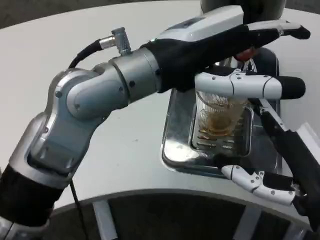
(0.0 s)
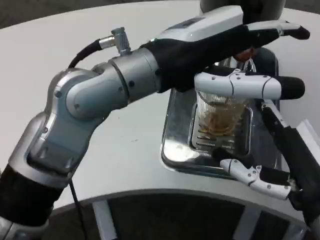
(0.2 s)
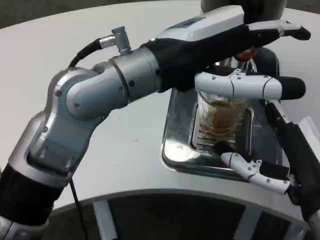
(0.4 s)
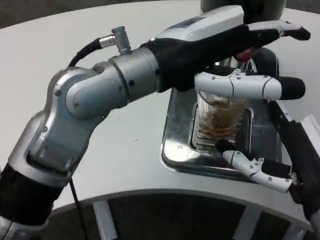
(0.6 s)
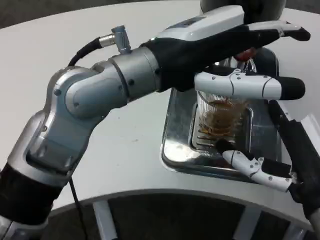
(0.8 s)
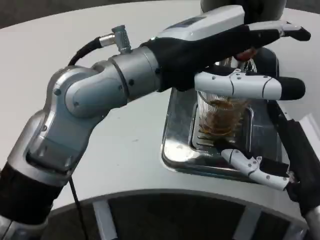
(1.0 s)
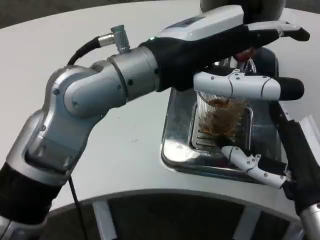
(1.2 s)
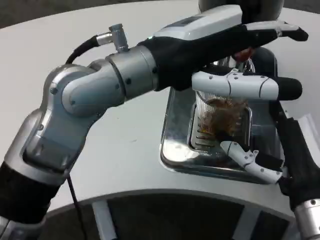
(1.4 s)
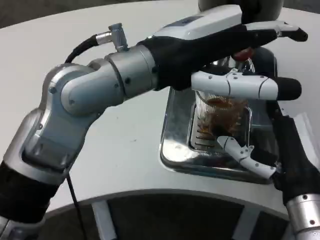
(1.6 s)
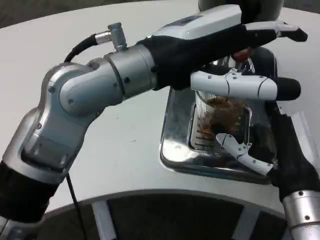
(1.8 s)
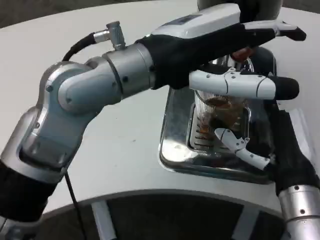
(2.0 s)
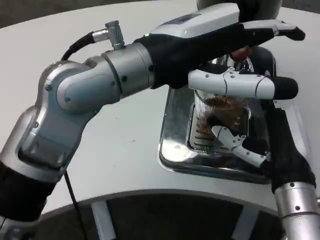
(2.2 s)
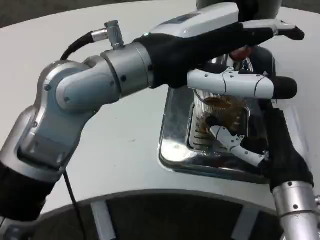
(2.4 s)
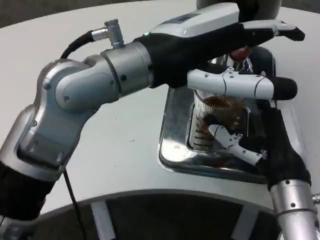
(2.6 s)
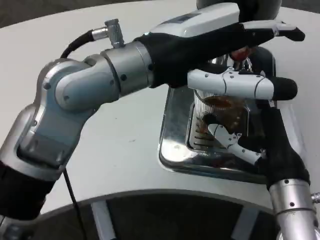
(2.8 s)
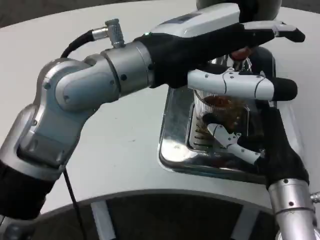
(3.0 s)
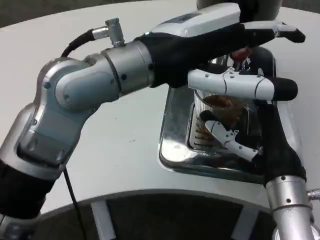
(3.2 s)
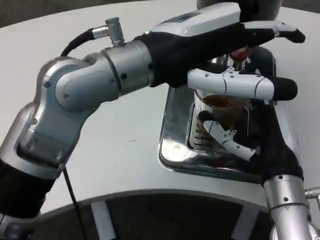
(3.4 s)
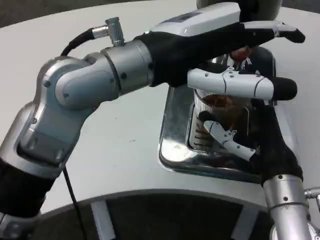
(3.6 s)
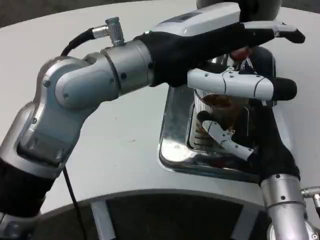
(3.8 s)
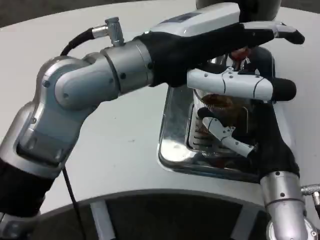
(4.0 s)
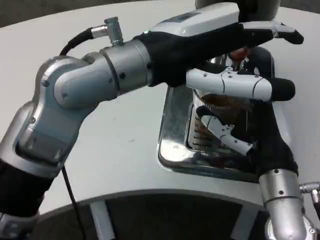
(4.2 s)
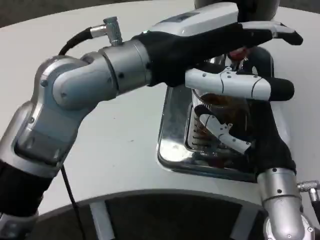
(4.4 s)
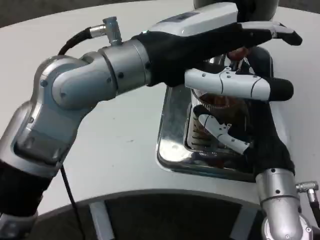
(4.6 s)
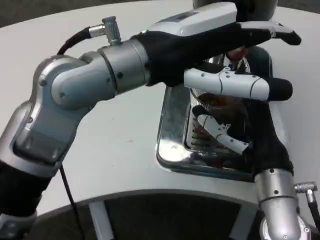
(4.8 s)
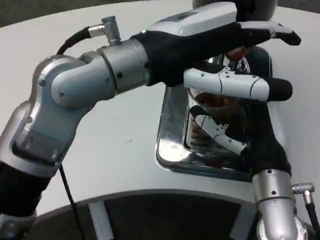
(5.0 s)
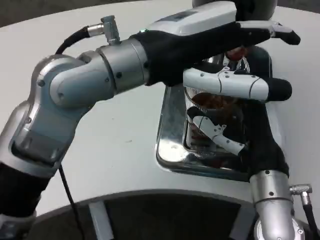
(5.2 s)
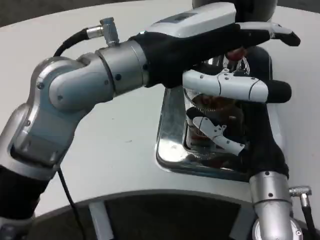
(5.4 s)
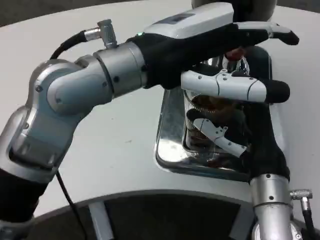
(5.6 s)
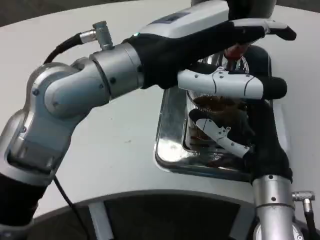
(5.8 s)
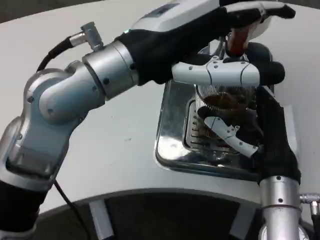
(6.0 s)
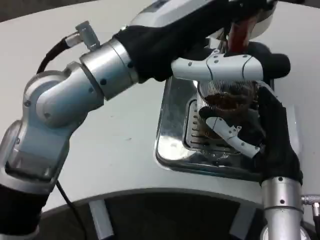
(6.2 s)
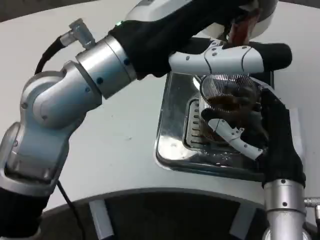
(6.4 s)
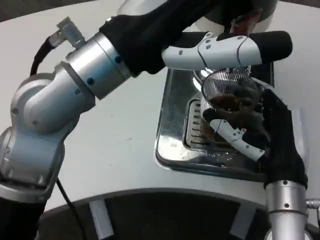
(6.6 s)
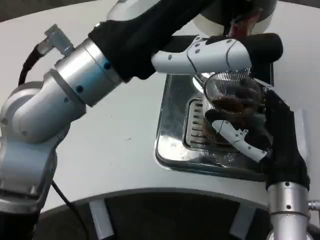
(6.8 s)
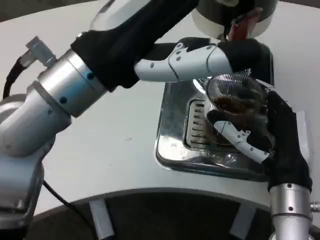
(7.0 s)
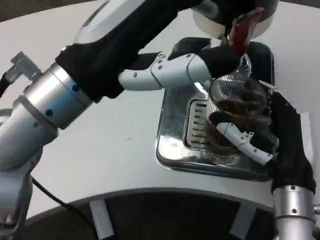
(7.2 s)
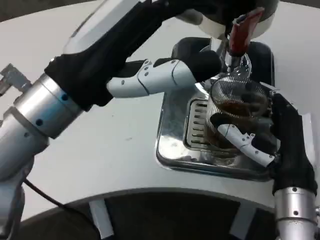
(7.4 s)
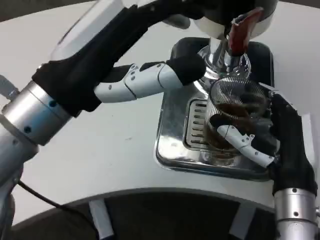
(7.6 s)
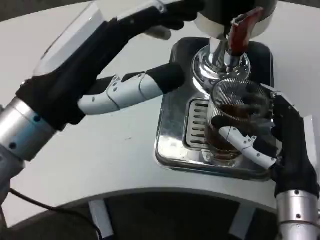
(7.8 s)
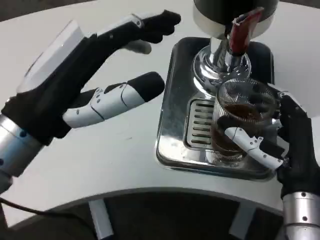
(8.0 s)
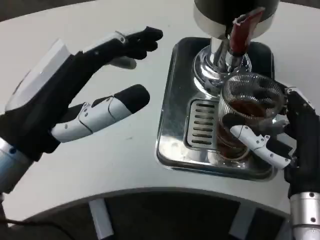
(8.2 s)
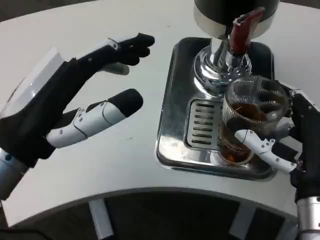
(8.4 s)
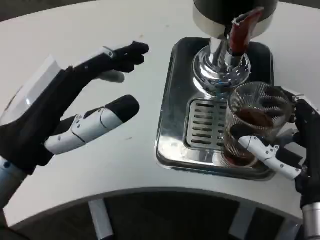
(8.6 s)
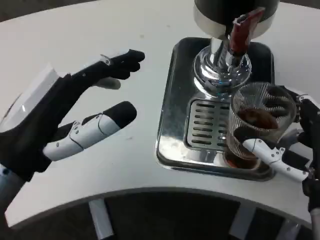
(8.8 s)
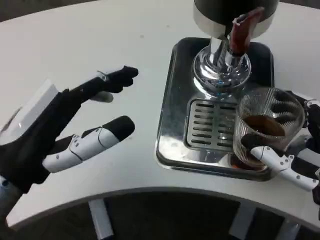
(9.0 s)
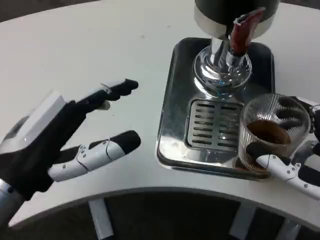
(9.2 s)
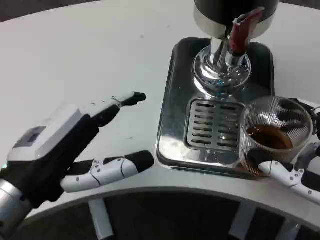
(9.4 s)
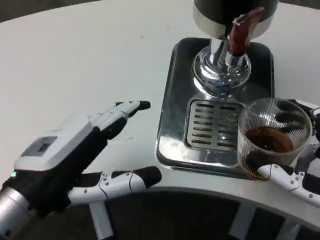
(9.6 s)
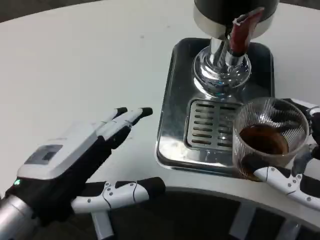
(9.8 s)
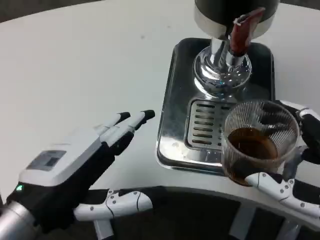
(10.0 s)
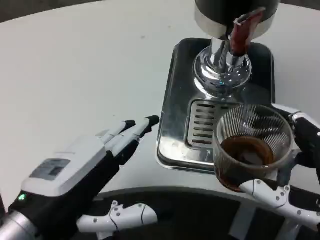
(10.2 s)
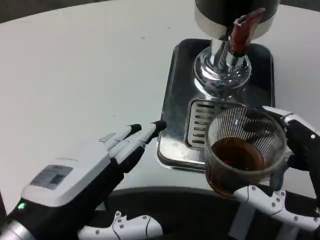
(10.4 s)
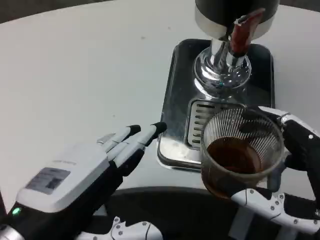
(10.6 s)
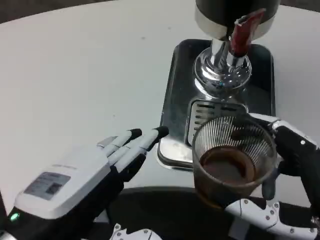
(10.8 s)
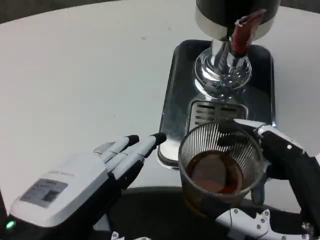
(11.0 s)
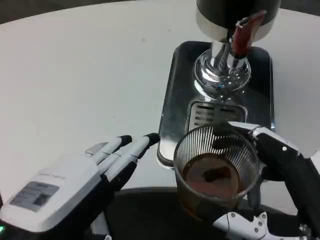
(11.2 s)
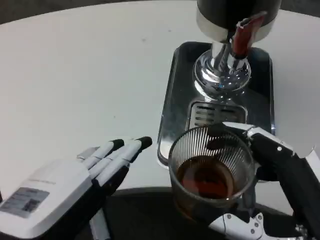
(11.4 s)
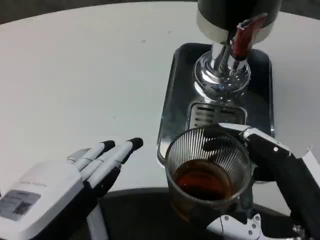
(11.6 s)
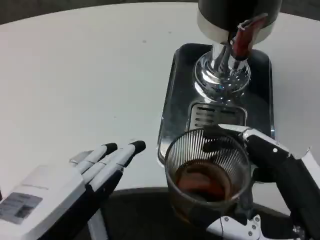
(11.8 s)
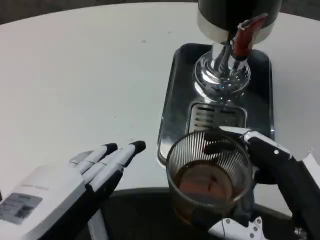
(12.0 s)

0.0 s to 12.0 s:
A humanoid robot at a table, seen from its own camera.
Task of the whole recording: Grasp the cup under the faucet to collect the drink, then remove the cup.
0.0 to 1.6 s: The right hand moves about 5 cm.
6.0 to 7.6 s: The left hand heads to the left, covering approximately 5 cm.
7.6 to 9.0 s: The right hand shifts by about 5 cm, while the left hand moves downward, about 5 cm.
9.0 to 10.4 s: The left hand ends up approximately 5 cm from where it was, while the right hand heads backward, covering approximately 5 cm.
10.4 to 12.0 s: The left hand shifts some 5 cm backward.

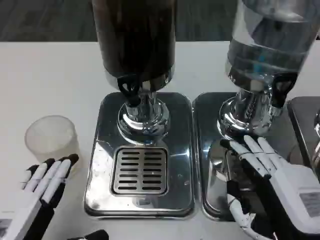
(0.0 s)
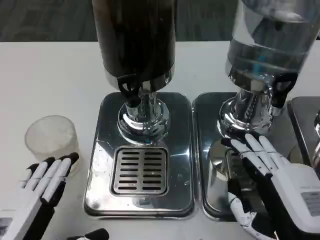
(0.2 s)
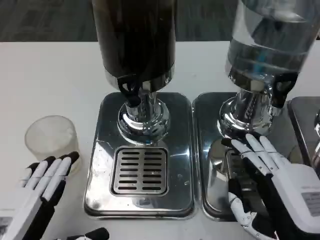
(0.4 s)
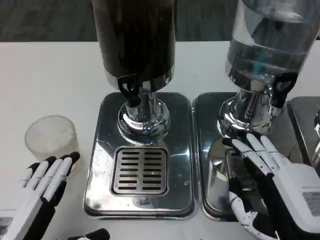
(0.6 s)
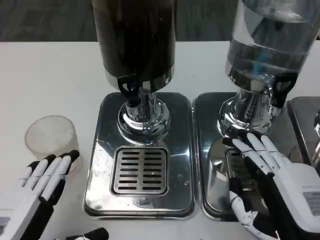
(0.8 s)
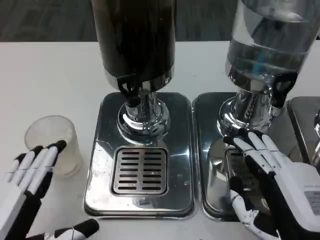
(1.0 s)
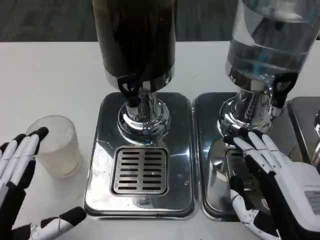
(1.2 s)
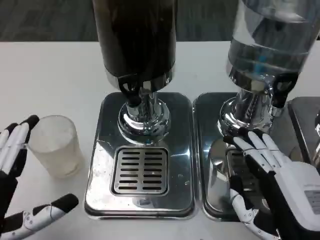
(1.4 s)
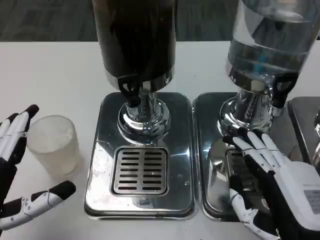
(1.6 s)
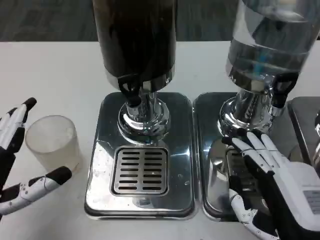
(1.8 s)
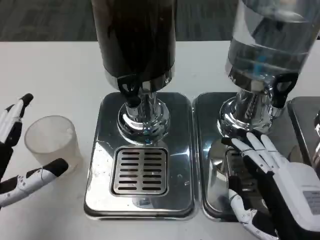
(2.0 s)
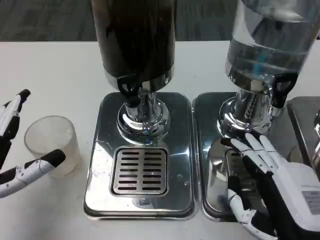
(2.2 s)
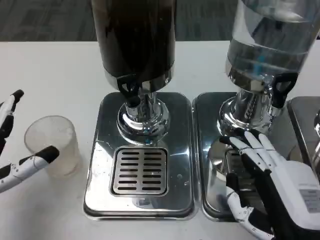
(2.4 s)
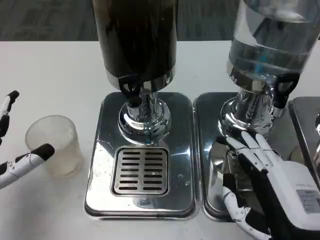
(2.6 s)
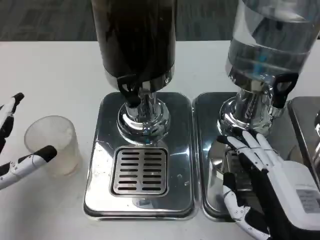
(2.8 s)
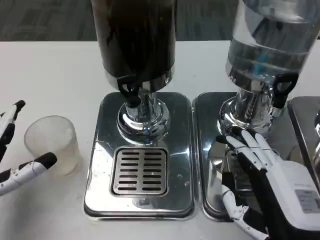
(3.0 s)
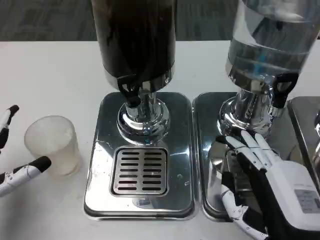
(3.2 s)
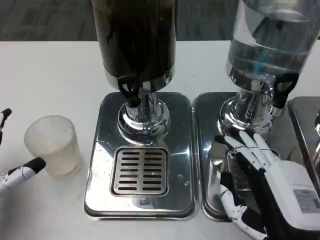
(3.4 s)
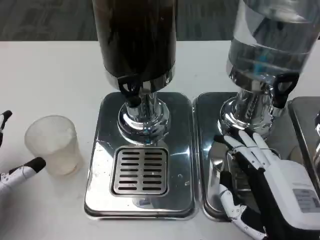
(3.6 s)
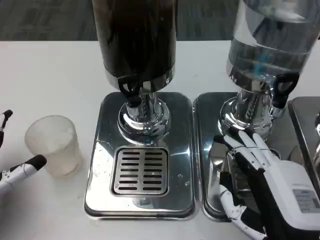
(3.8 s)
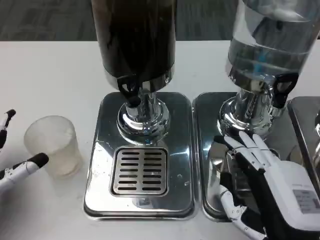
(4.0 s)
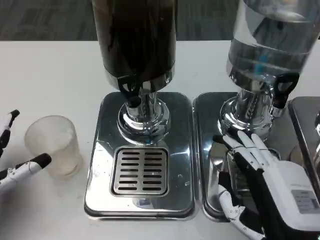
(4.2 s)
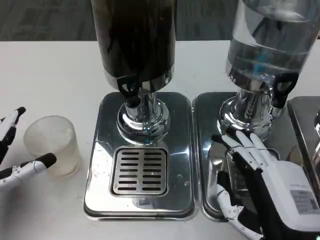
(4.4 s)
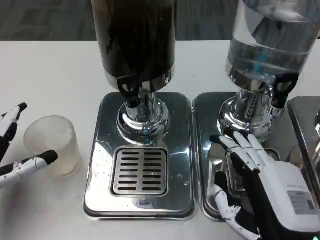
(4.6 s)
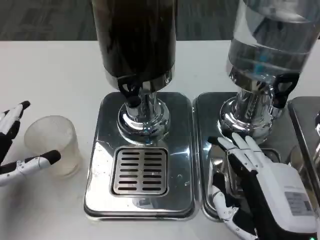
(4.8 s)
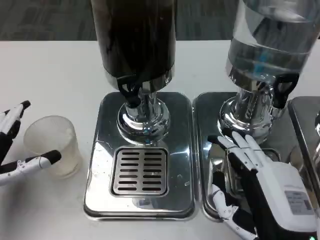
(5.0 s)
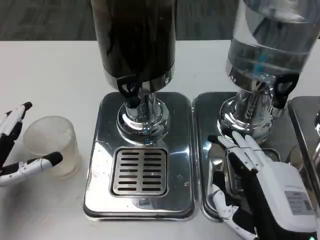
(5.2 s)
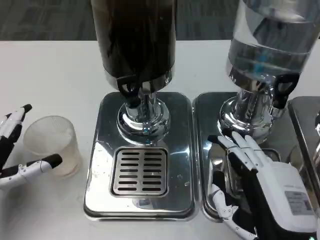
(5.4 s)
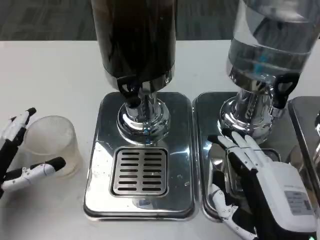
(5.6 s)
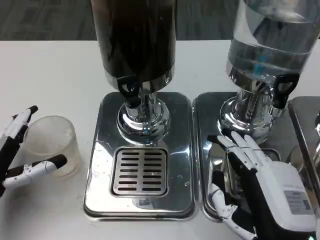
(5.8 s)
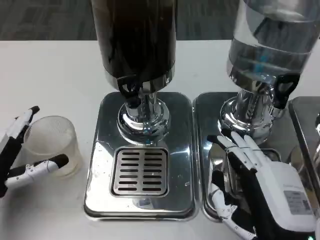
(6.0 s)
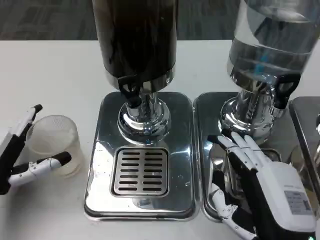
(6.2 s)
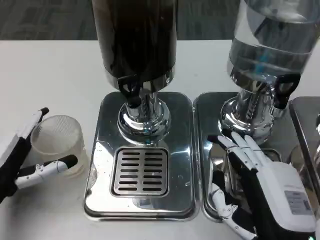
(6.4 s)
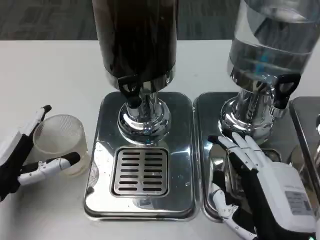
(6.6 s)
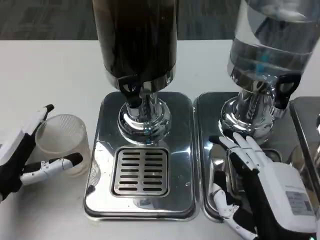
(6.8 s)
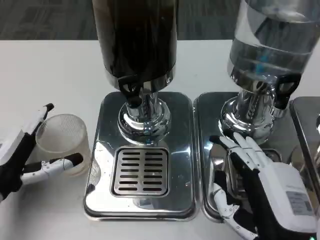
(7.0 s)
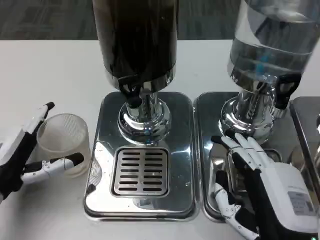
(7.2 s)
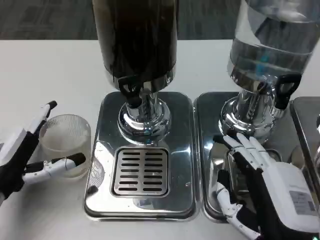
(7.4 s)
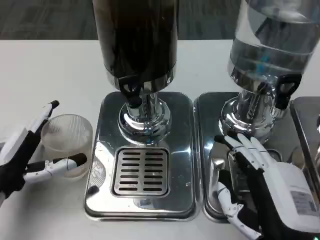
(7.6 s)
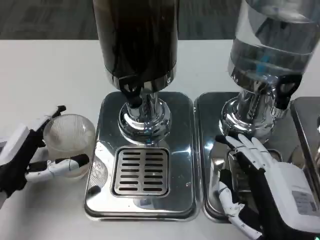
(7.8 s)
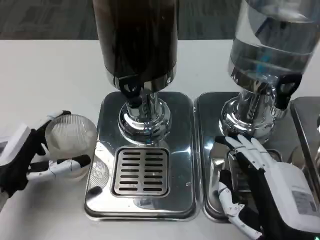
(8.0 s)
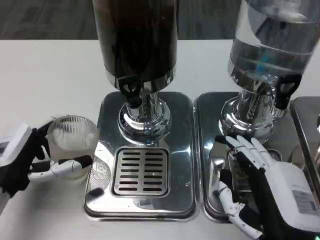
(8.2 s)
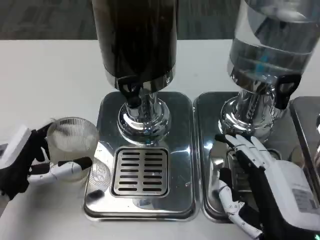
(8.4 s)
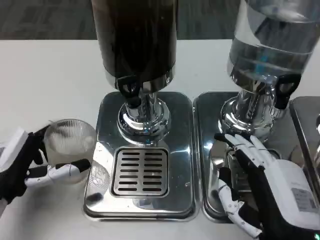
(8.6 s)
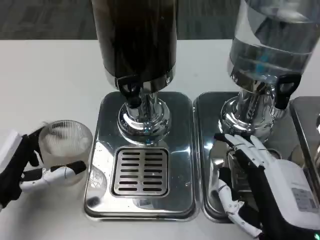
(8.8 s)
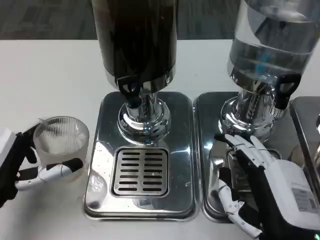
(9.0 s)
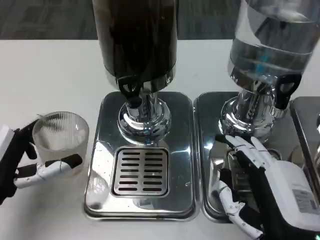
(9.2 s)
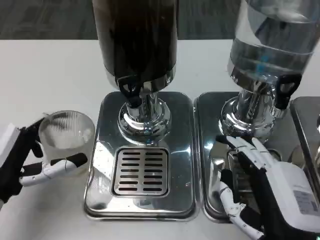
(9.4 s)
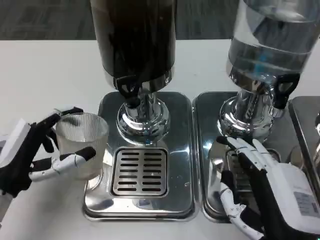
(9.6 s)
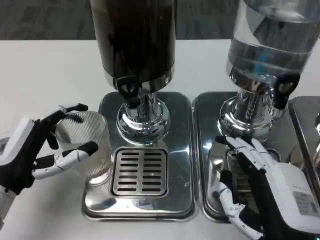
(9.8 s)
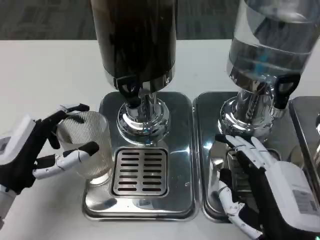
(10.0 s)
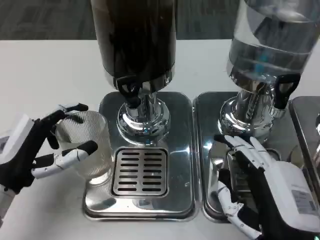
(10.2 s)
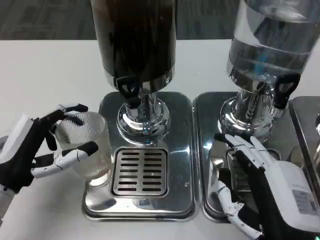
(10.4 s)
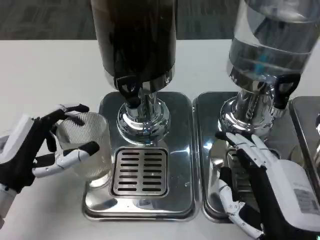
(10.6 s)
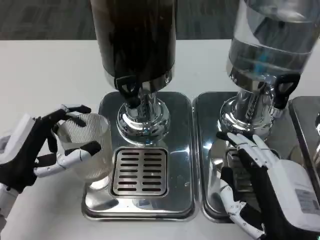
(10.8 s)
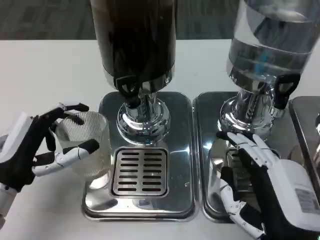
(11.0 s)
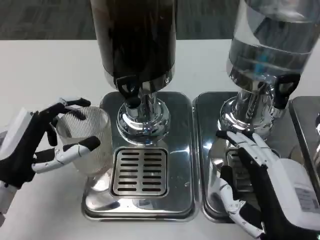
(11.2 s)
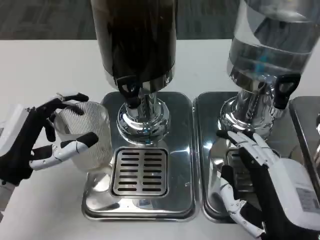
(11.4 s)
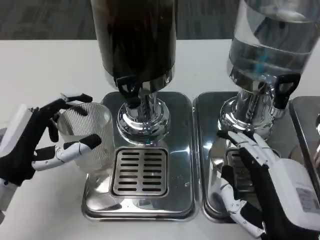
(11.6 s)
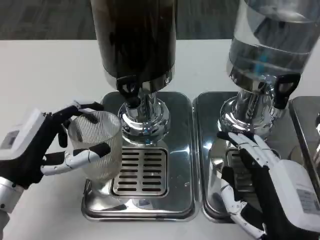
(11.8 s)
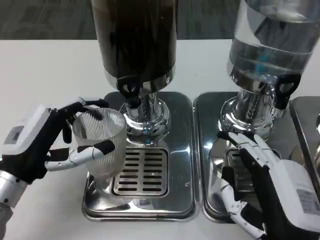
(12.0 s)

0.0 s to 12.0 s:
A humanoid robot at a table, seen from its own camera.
Task of the whole recording: Grasp the cup under the faucet to collect the drink, then remove the cup.
0.0 to 1.6 s: The hands stay close to where they were, moving slightly.
1.6 to 3.0 s: The left hand moves forward, approximately 5 cm.
3.0 to 6.0 s: There are only small adjustments of the hands.
7.6 to 10.4 s: There are only small adjustments of the hands.
10.4 to 12.0 s: There are only small adjustments of the hands.
